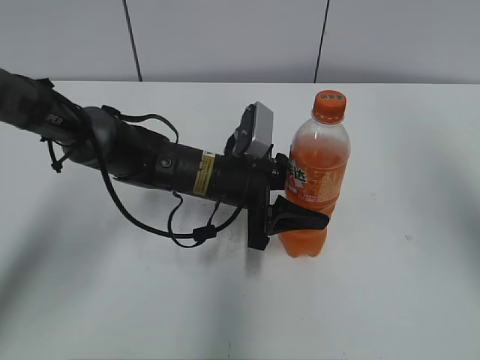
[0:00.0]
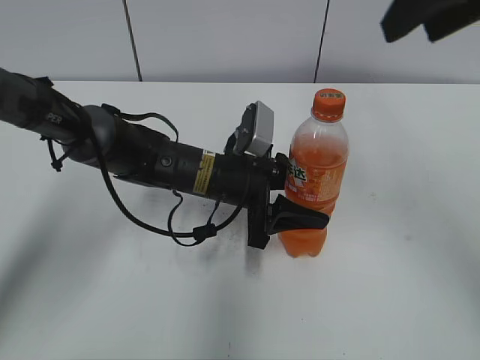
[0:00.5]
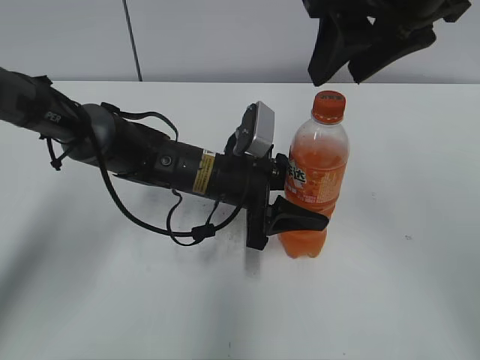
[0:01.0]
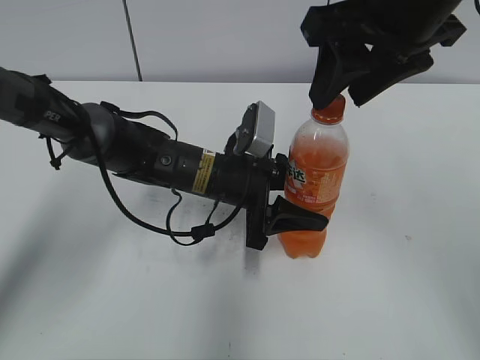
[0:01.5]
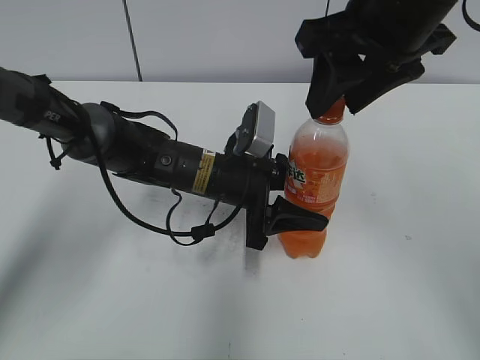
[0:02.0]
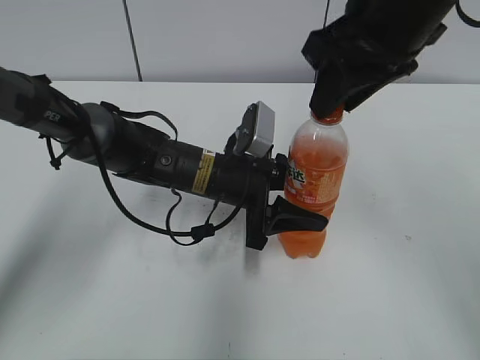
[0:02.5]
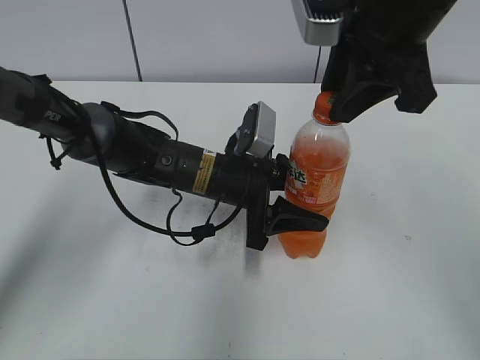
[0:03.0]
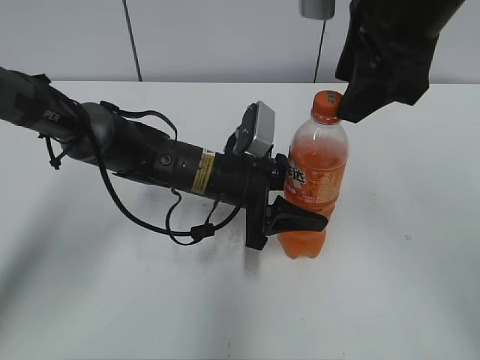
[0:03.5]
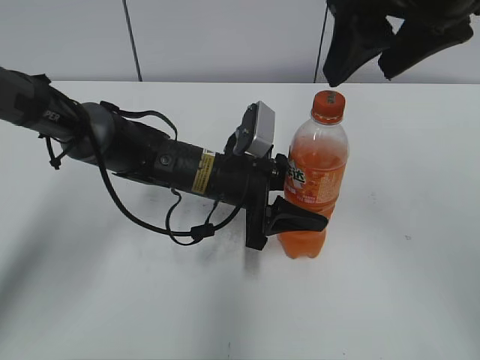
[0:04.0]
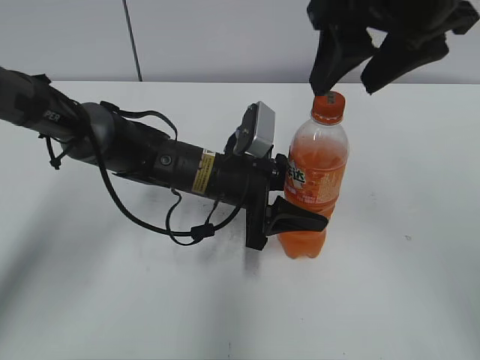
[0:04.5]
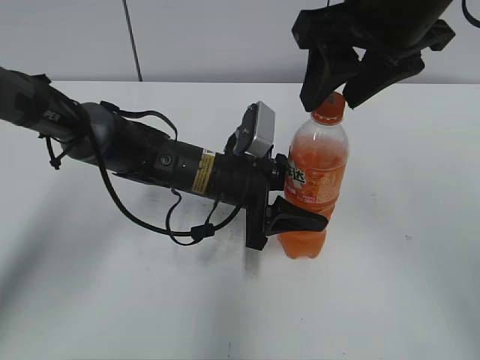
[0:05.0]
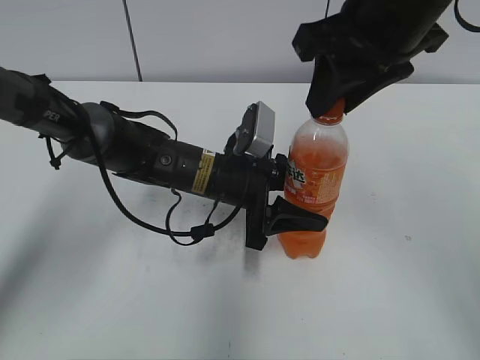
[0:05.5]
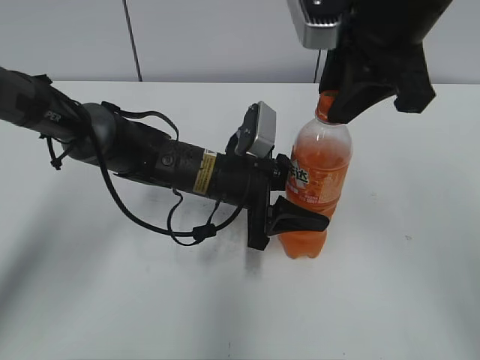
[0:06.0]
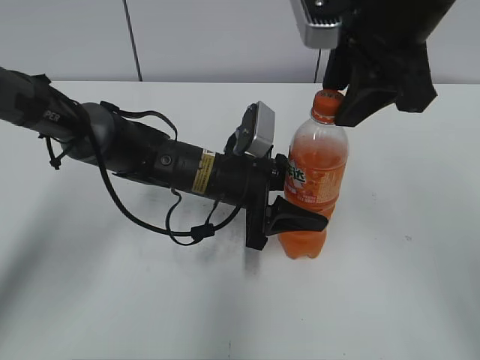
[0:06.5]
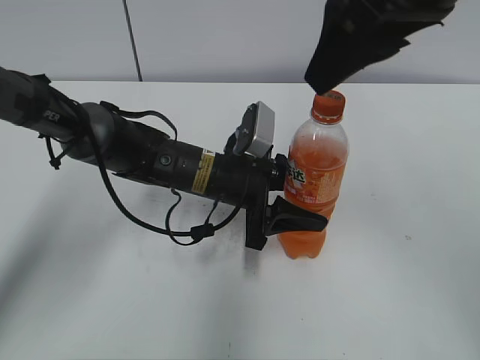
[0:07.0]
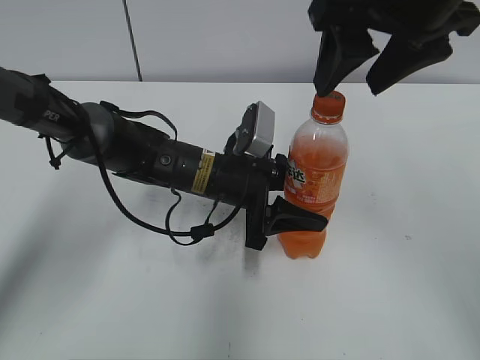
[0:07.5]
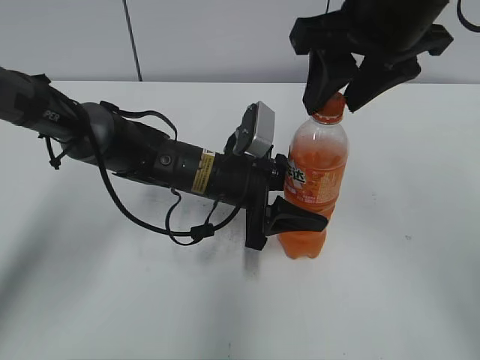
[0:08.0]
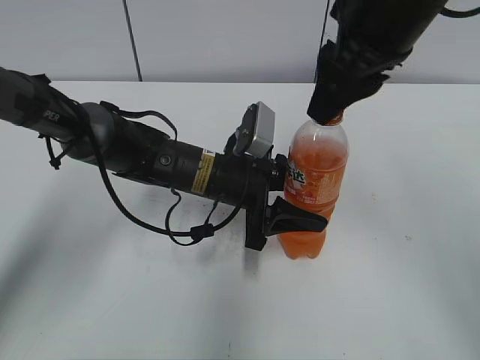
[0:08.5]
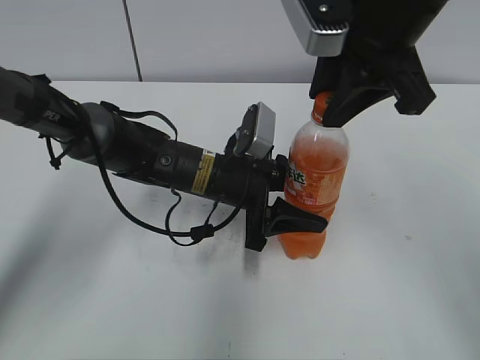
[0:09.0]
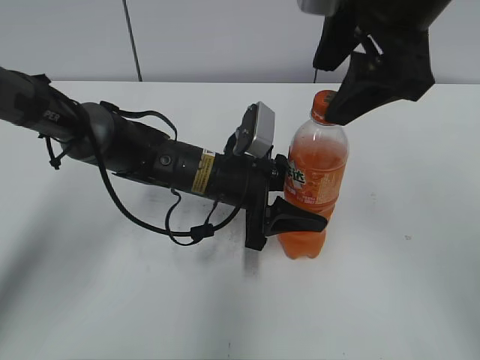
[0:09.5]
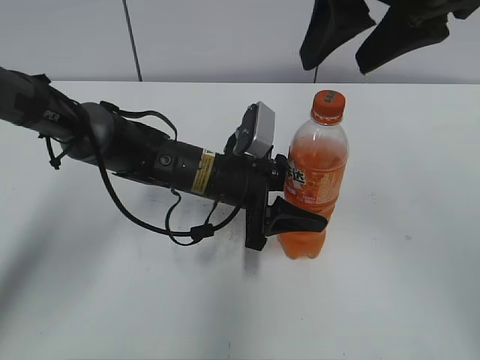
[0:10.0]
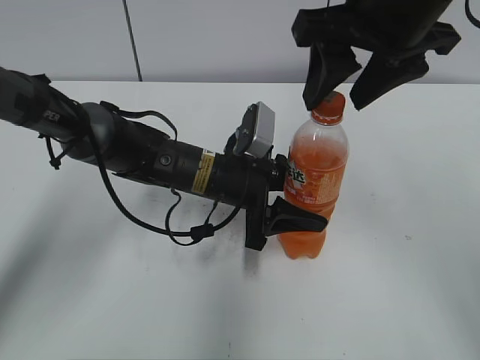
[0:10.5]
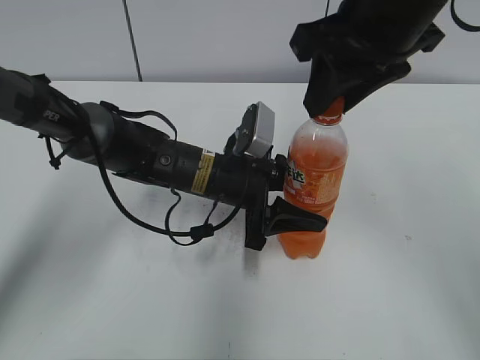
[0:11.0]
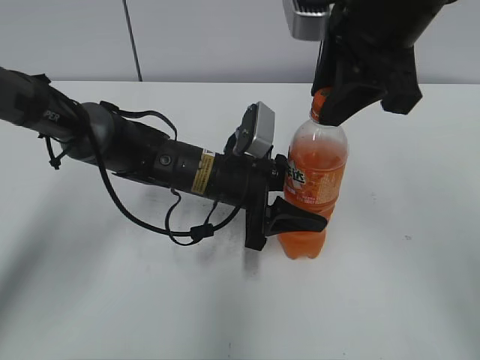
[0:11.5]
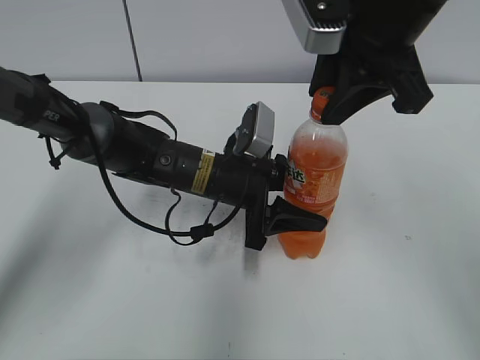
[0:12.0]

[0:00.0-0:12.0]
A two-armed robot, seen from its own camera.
0:00.0 to 0:02.0: The right gripper heads to the left, forward and downward, covering roughly 20 cm.
0:02.0 to 0:04.0: The right gripper opens its fingers.
0:04.0 to 0:06.0: The right gripper closes its fingers.
0:06.0 to 0:08.0: The right gripper opens its fingers.
0:08.0 to 0:10.0: The right gripper closes, then reopens.
0:10.0 to 0:12.0: The right gripper closes its fingers.

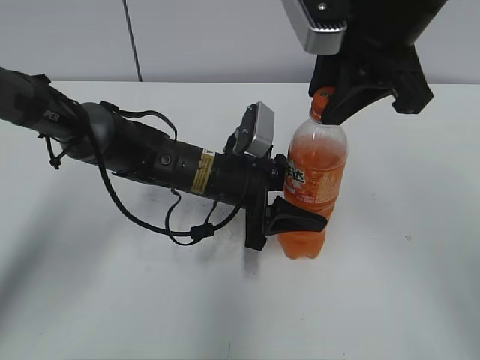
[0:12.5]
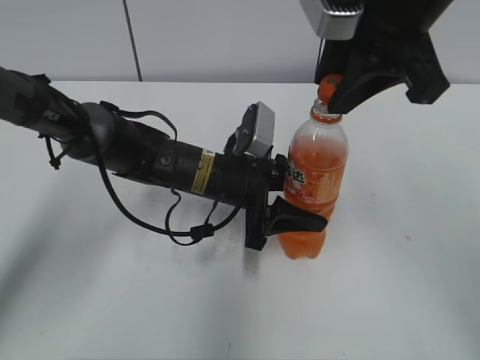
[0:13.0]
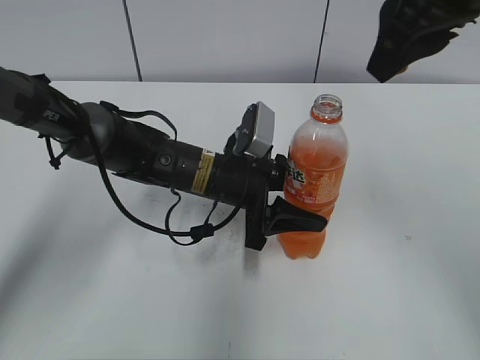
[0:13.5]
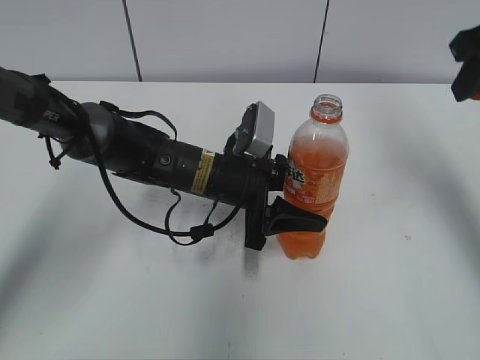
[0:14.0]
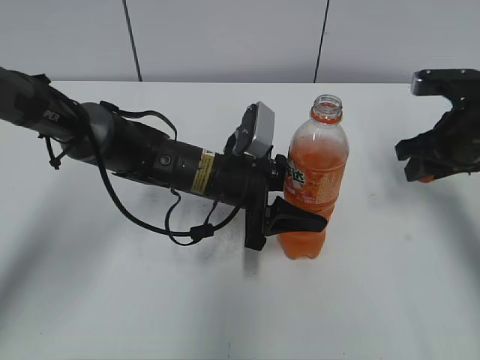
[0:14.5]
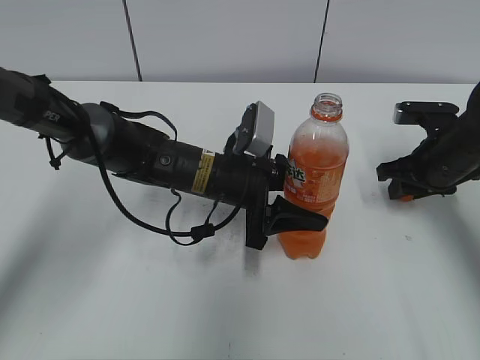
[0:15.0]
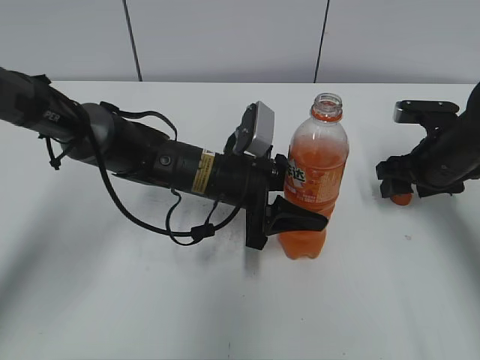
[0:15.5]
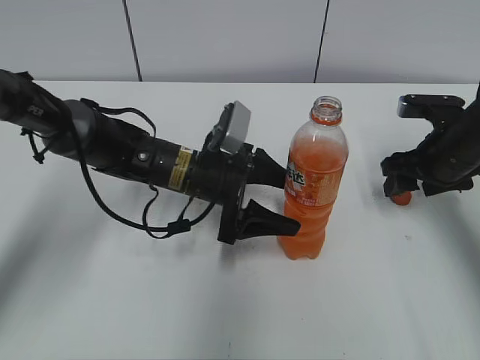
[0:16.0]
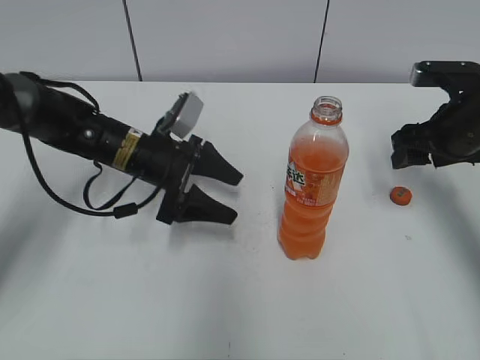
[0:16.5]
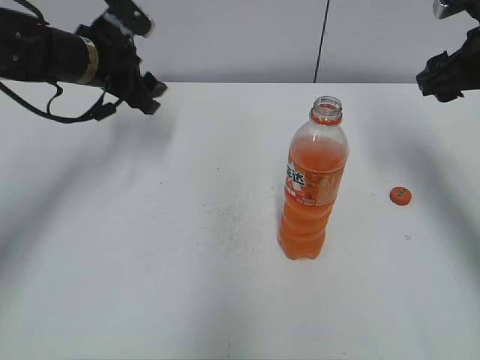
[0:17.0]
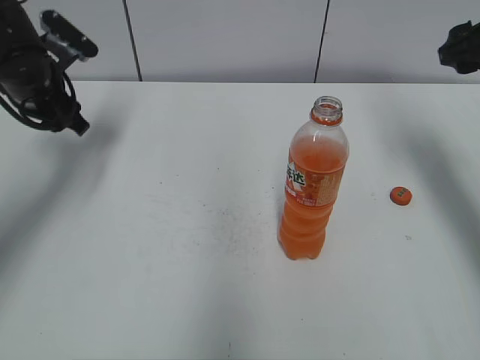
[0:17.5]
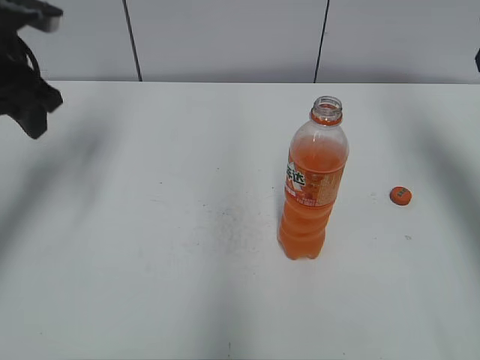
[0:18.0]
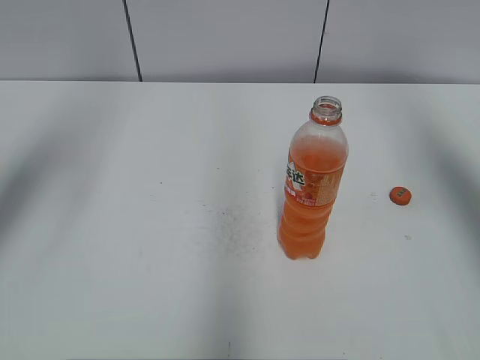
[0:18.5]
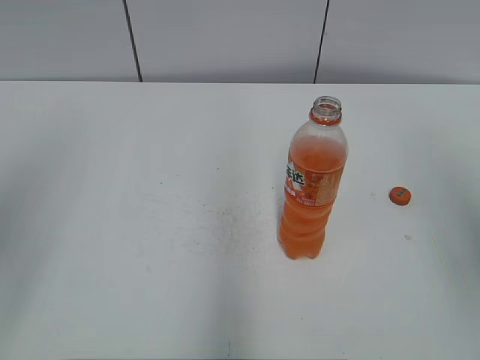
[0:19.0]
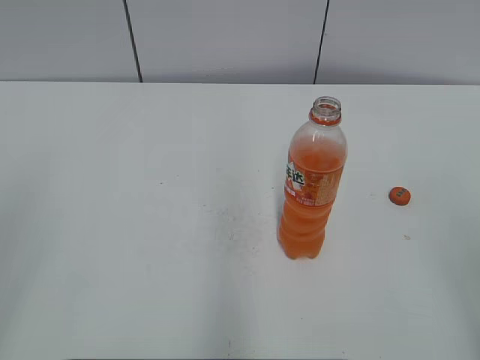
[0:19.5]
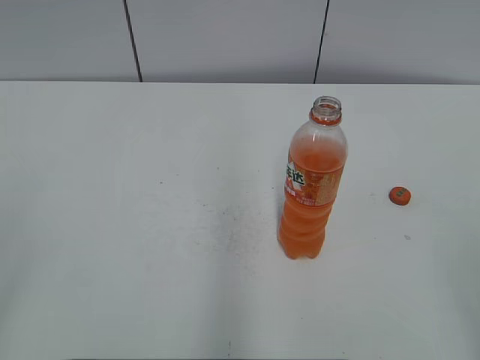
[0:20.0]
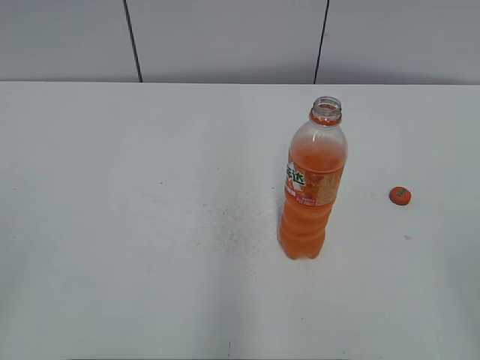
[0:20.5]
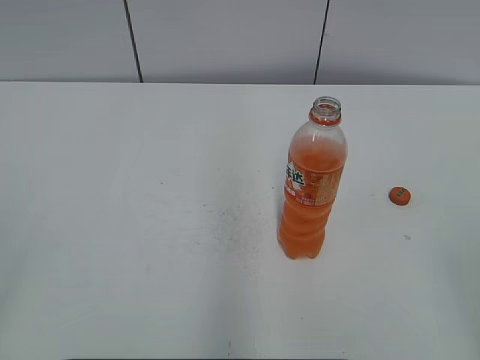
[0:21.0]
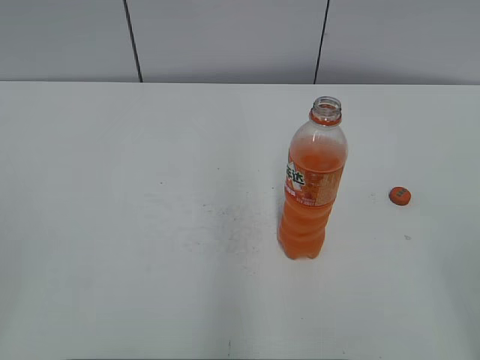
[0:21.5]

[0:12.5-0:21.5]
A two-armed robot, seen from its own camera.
Step, 0:13.5 to 0:15.0: Place the bottle cap on the right.
0:12.5 to 0:14.5: The right gripper goes some 20 cm downward and to the right.
0:14.5 to 0:17.0: The left gripper heads to the left, upward and forward, covering some 20 cm, while the right gripper heads upward, covering approximately 5 cm, and opens.
0:17.0 to 0:19.5: Both grippers move backward, about 35 cm.

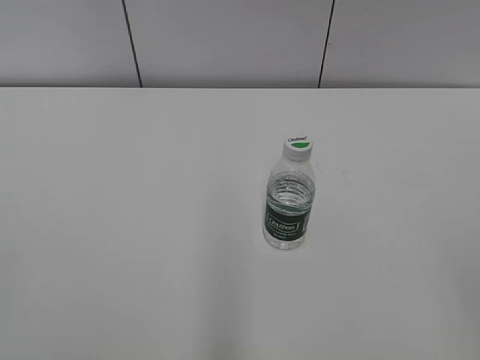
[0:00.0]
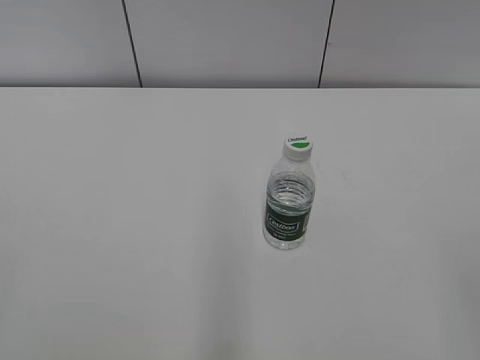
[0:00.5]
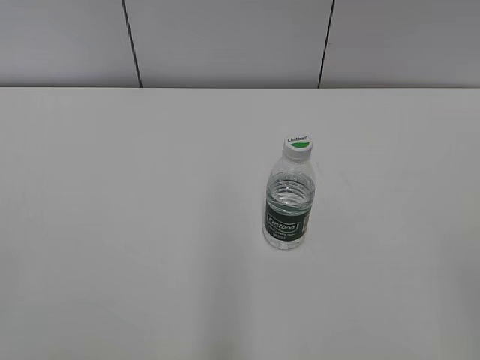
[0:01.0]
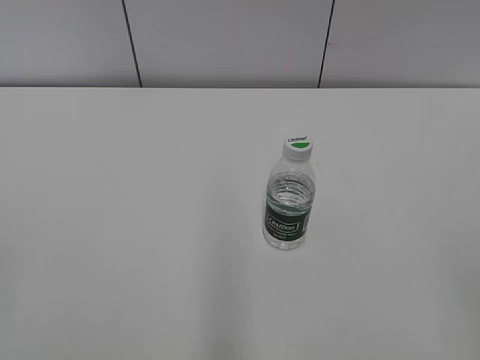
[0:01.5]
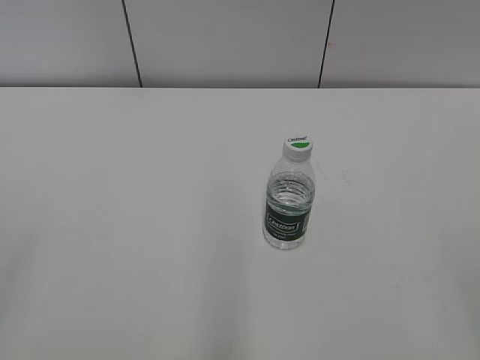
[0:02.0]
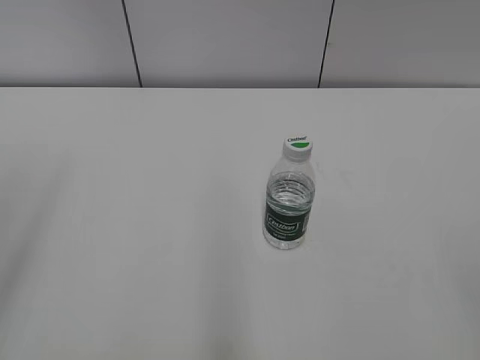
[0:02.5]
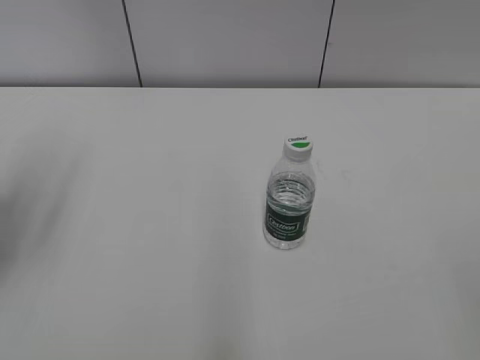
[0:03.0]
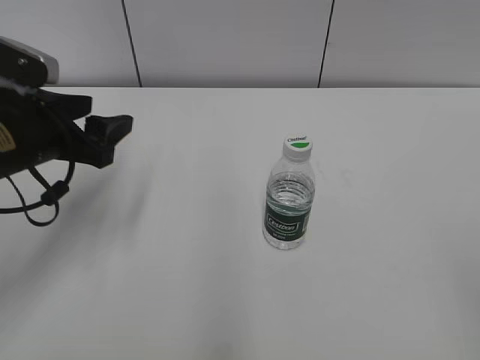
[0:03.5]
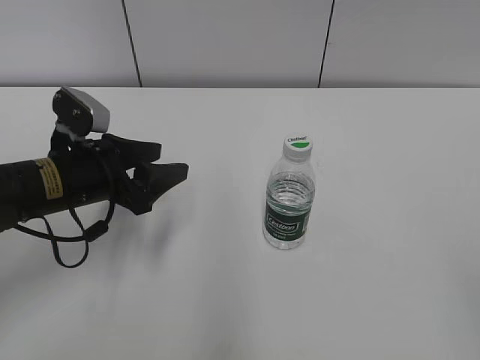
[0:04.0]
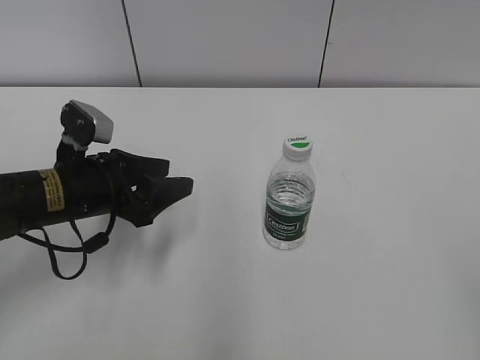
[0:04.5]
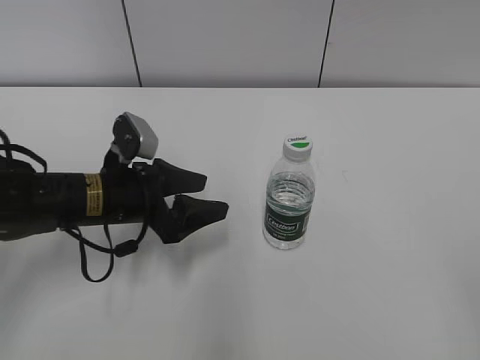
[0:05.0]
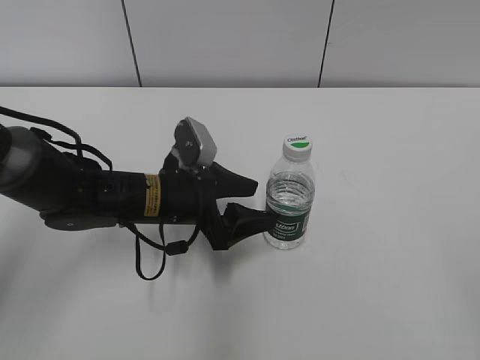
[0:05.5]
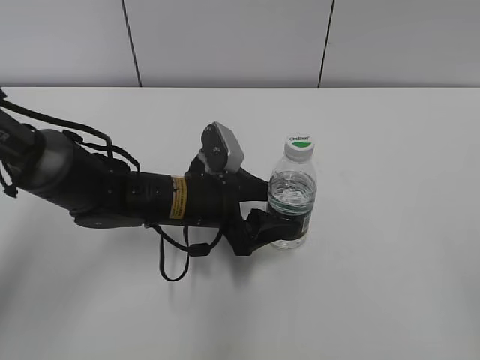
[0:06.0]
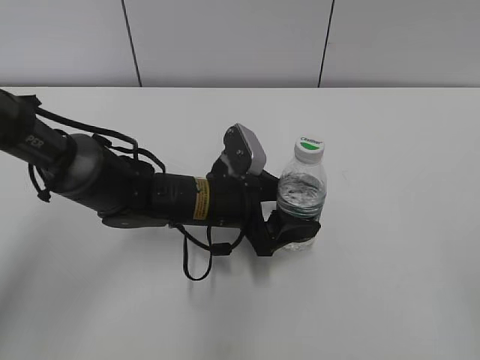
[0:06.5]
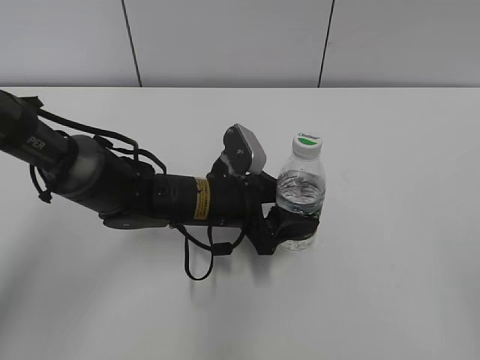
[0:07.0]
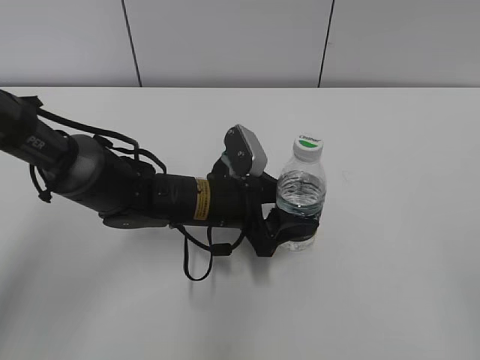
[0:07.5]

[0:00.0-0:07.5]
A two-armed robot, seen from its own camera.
Step, 0:00.0 to 0:06.5: Grab the C'estbon with the left hand.
0:02.0 to 0:04.0: The left gripper is displaced forward, downward and to the right by approximately 35 cm.
0:04.0 to 0:05.5: The left gripper goes approximately 10 cm to the right.
0:05.5 to 0:07.5: The left gripper shifts about 5 cm to the right.
